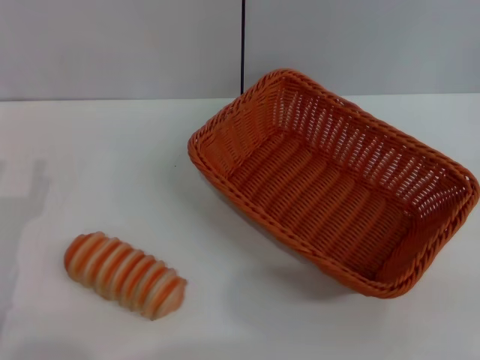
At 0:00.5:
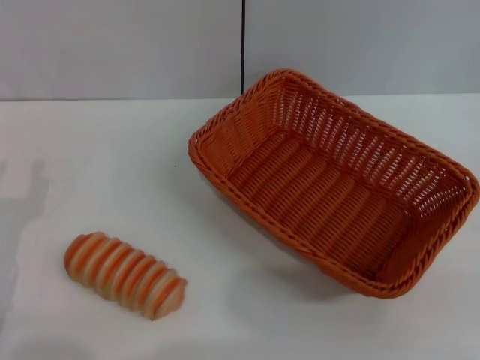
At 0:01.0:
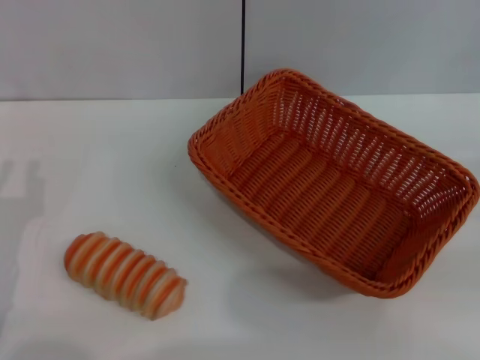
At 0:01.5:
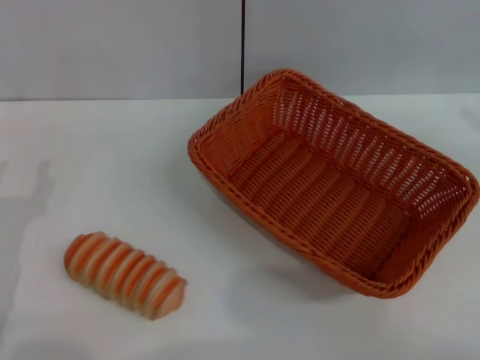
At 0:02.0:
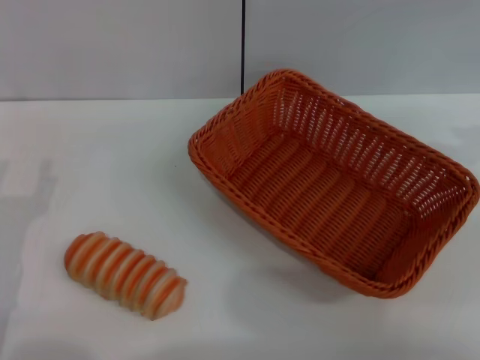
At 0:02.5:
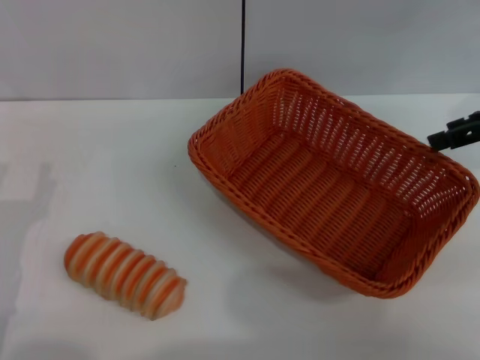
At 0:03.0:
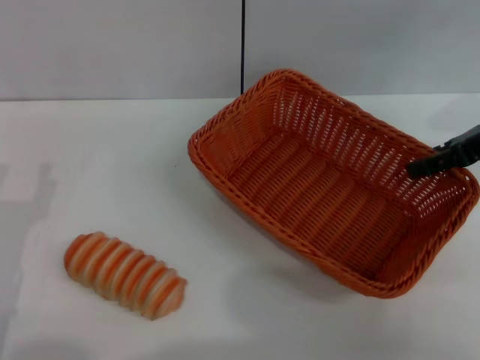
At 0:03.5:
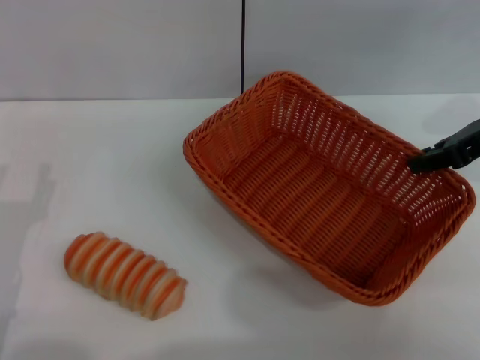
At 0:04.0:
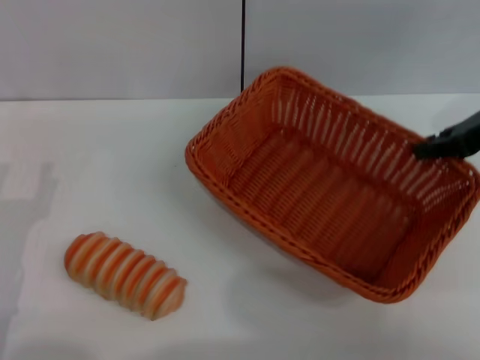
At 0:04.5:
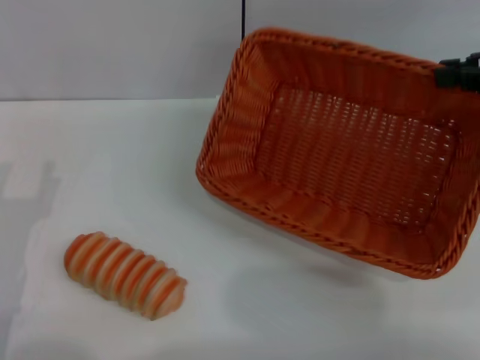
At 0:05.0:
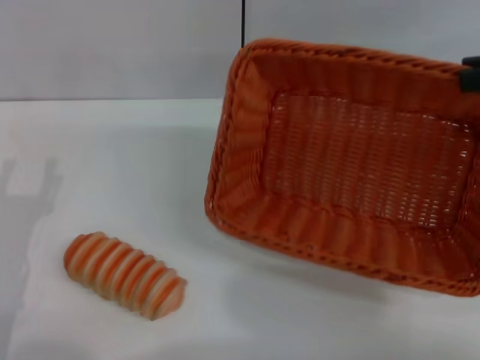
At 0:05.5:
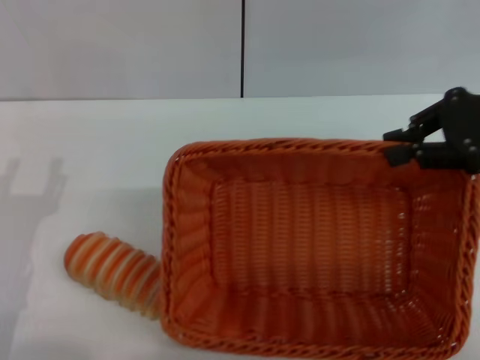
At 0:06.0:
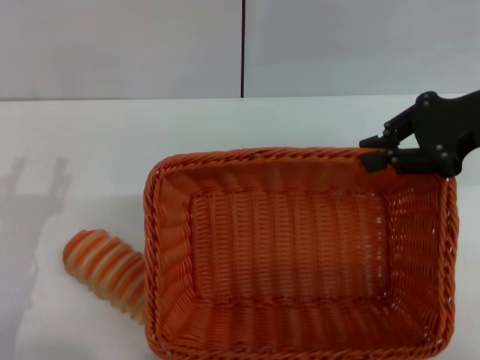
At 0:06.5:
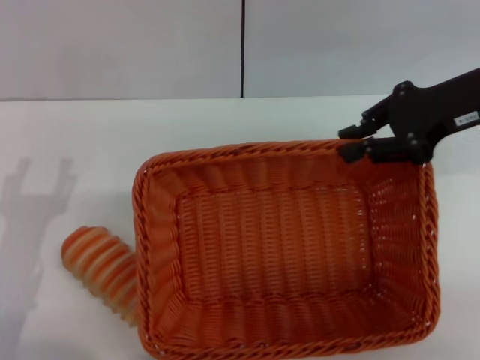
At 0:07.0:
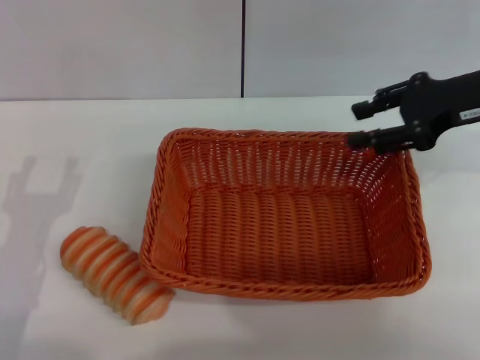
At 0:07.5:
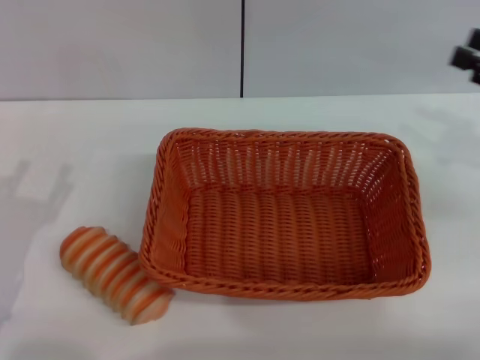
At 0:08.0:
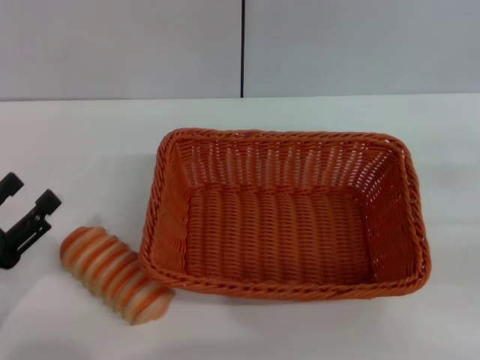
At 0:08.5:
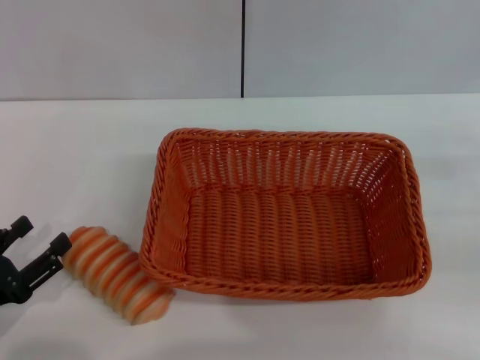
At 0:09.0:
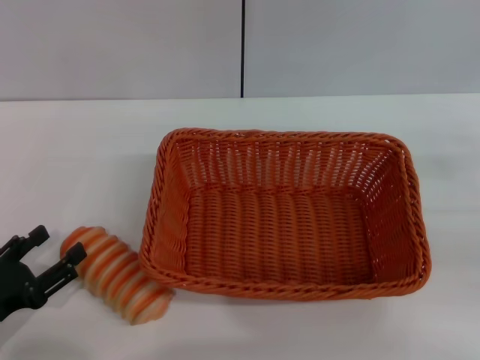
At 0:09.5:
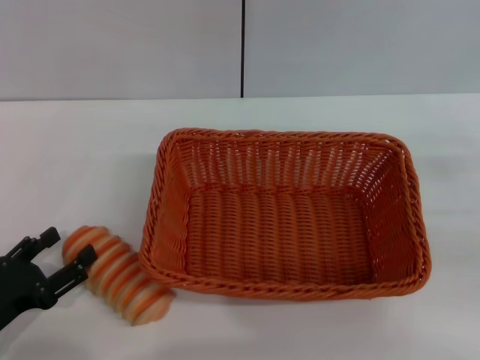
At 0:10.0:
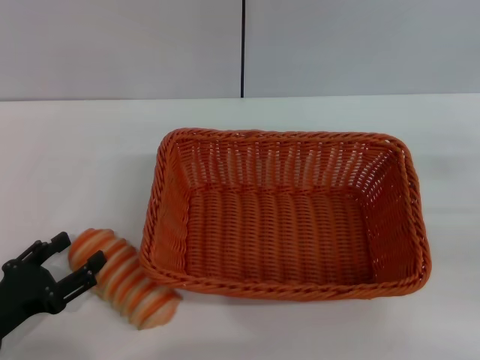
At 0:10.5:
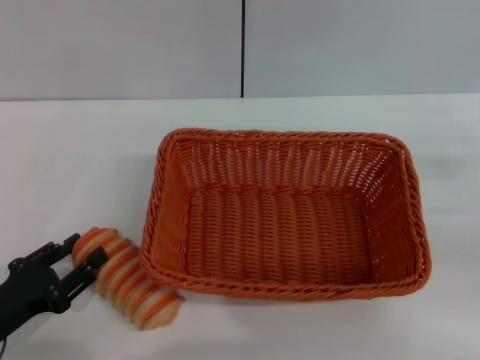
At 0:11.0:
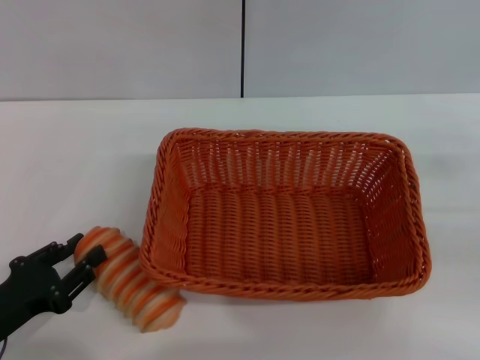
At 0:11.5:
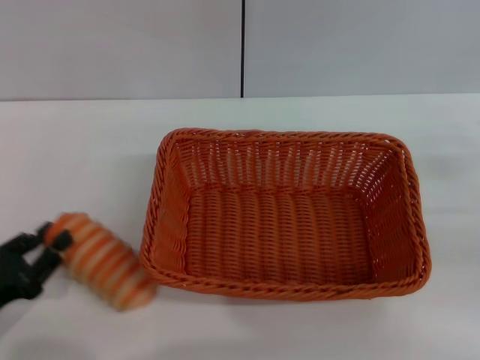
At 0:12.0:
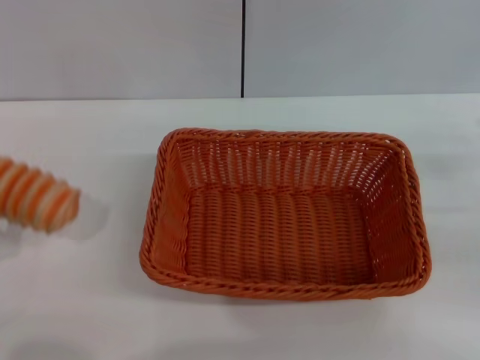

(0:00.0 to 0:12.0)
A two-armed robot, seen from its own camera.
Step, 0:00.0 - 0:04.0: Pick up the light basket with the right gripper.
Step, 0:04.5 - 0:06.5: Place the light basket in the center of view with the right gripper.
Step, 0:07.5 - 0:11.5: Pick up the long bread with the left gripper.
0:00.0 - 0:02.0: The right gripper shifts approximately 20 cm upward and forward.
0:02.0 - 0:04.0: The right gripper moves to the left and downward, some 10 cm, and closes.
0:06.0 - 0:08.0: The right gripper moves to the right, backward and downward, some 20 cm, and opens. Meanwhile the left gripper moves to the left, roughly 5 cm.
0:08.0 - 0:10.0: The grippers make only small movements.
0:10.0 - 0:12.0: The left gripper ends up about 5 cm from where it was, and closes its fingers.

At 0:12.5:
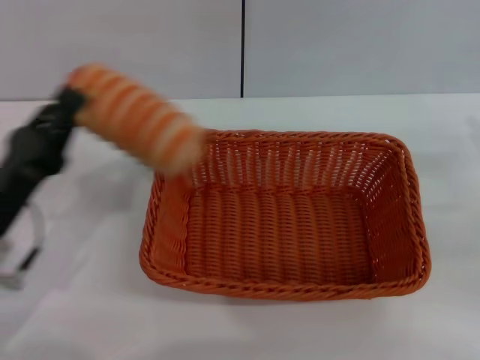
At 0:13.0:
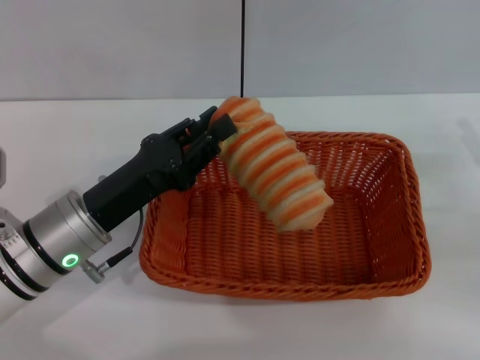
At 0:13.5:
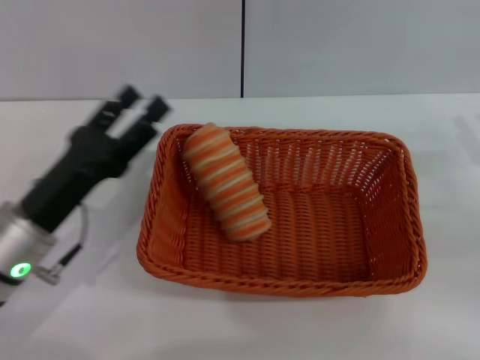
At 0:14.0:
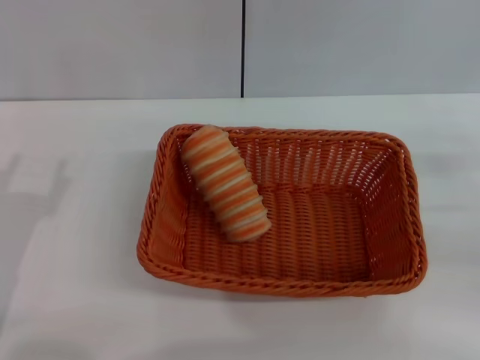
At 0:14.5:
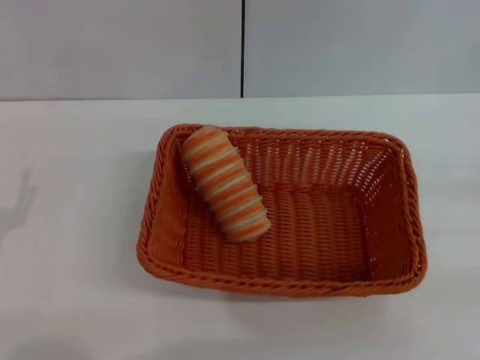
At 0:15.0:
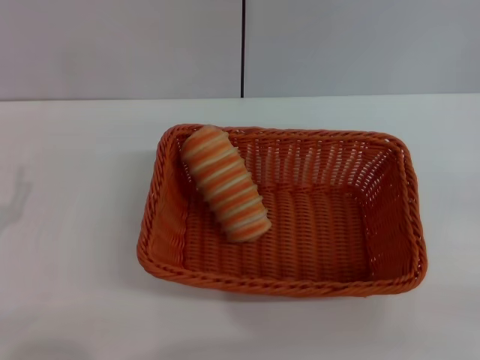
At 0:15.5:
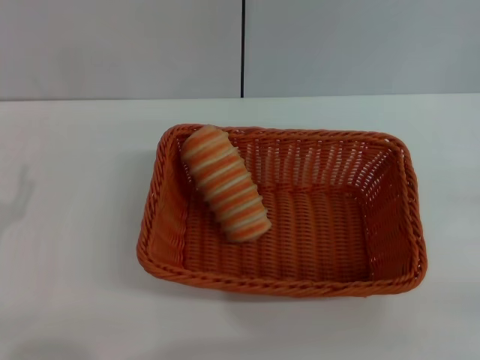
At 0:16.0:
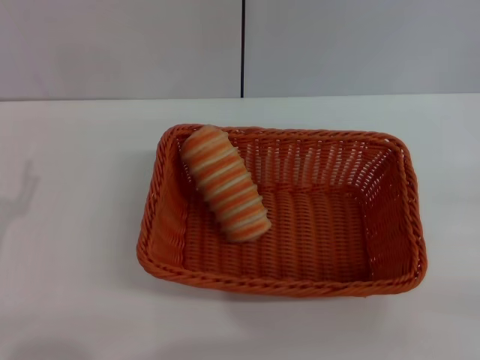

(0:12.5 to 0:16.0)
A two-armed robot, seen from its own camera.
0:12.5 - 0:14.5: The right gripper moves to the right, about 5 cm. The left gripper moves backward, some 5 cm, and opens its fingers.

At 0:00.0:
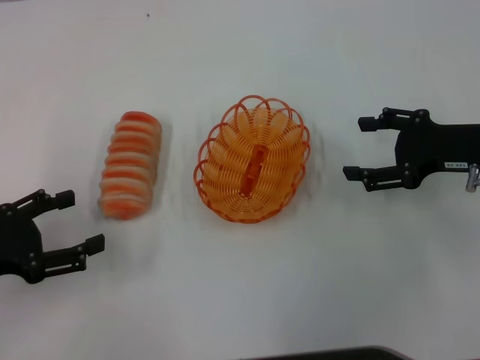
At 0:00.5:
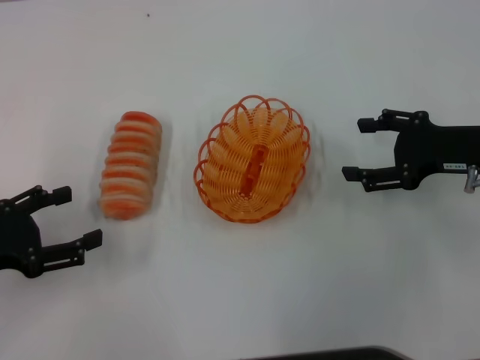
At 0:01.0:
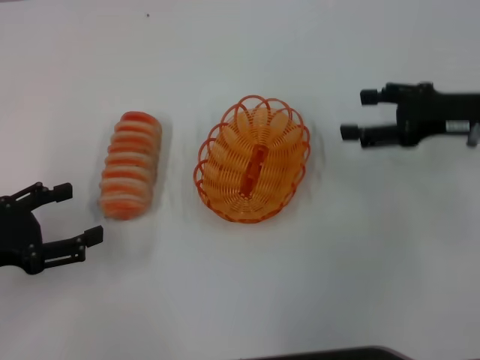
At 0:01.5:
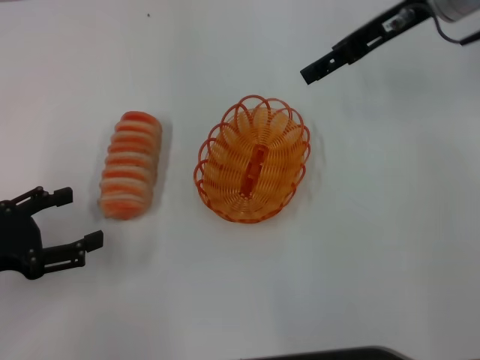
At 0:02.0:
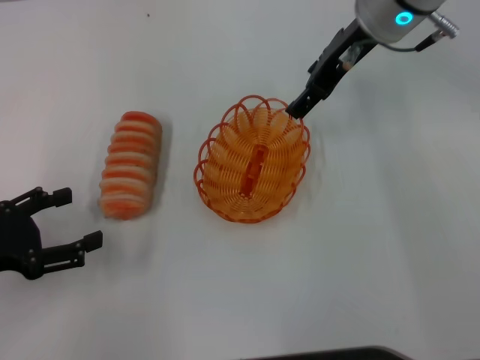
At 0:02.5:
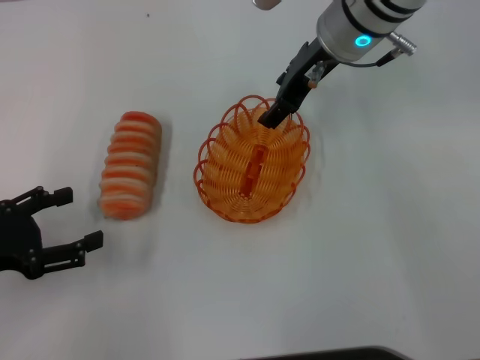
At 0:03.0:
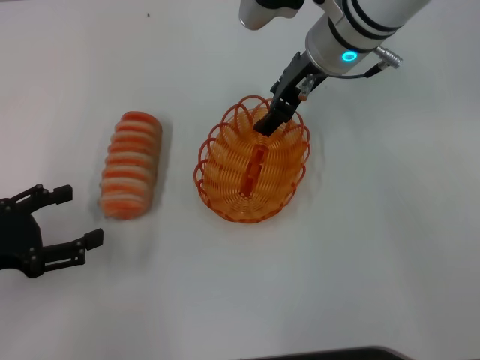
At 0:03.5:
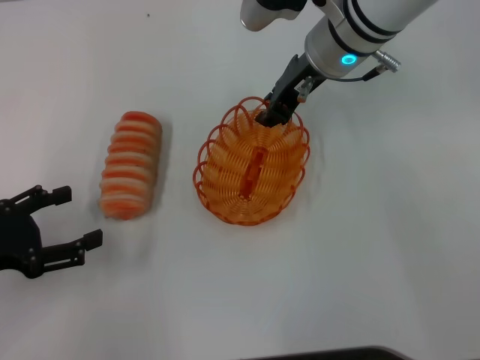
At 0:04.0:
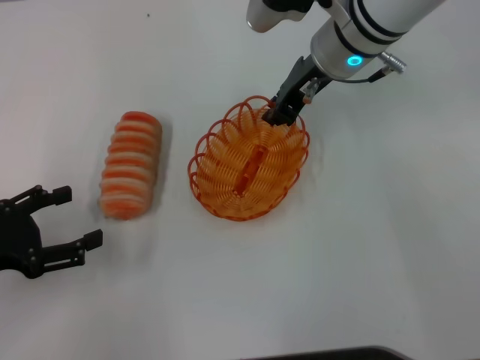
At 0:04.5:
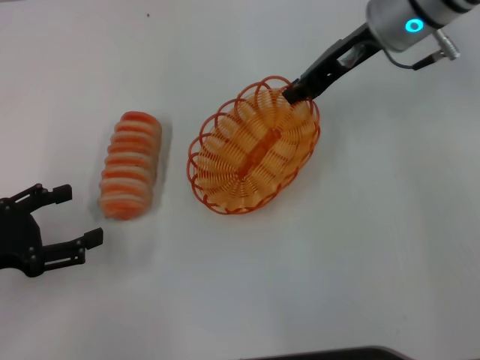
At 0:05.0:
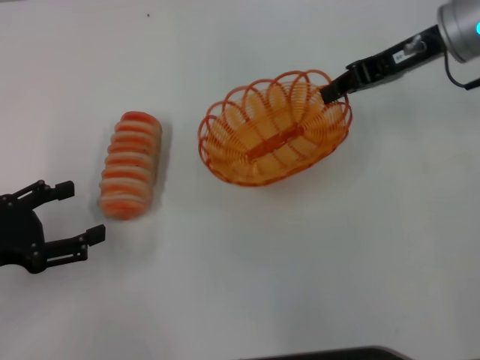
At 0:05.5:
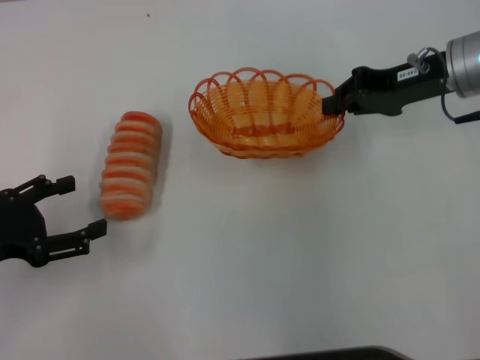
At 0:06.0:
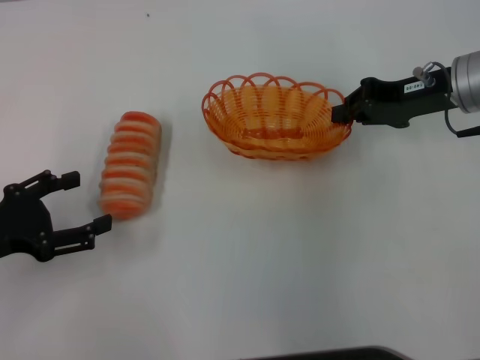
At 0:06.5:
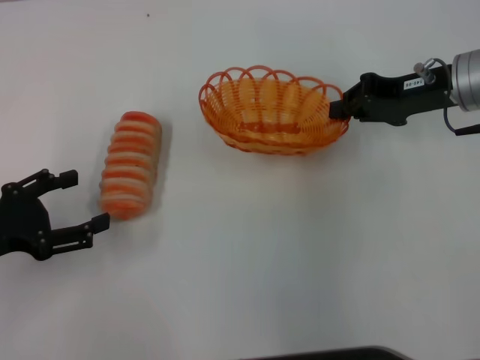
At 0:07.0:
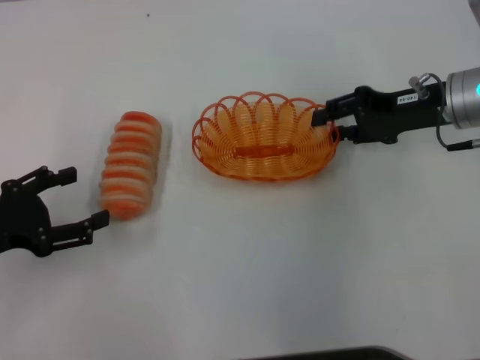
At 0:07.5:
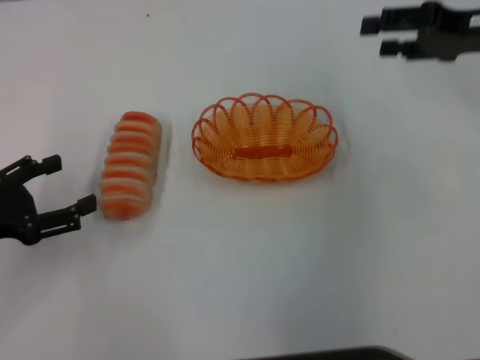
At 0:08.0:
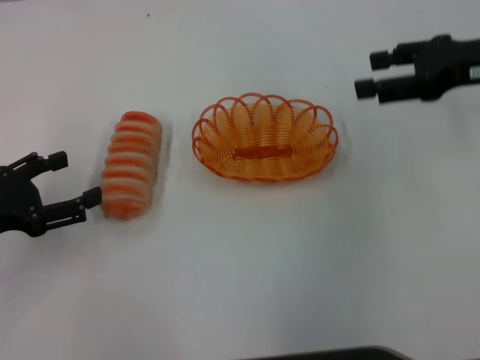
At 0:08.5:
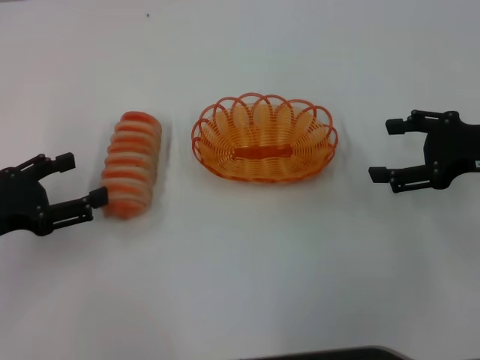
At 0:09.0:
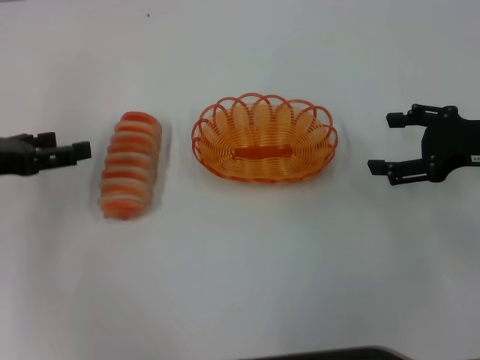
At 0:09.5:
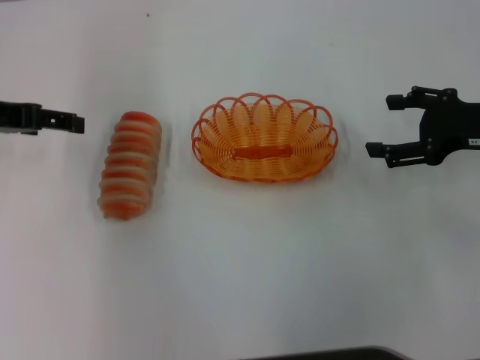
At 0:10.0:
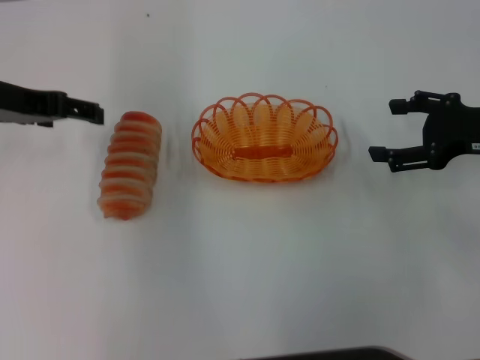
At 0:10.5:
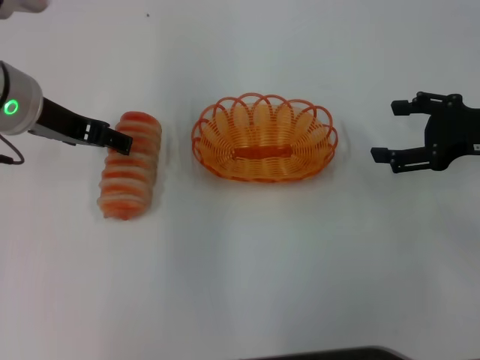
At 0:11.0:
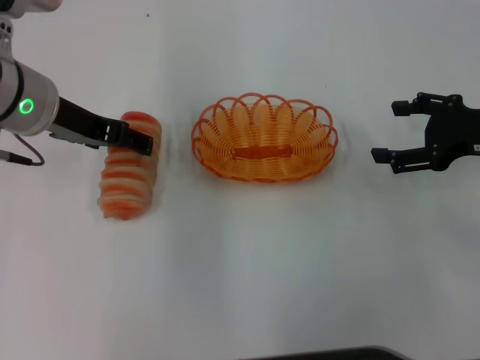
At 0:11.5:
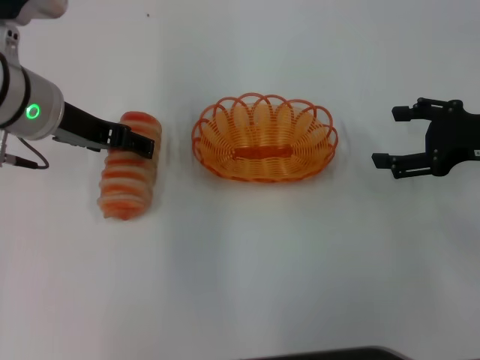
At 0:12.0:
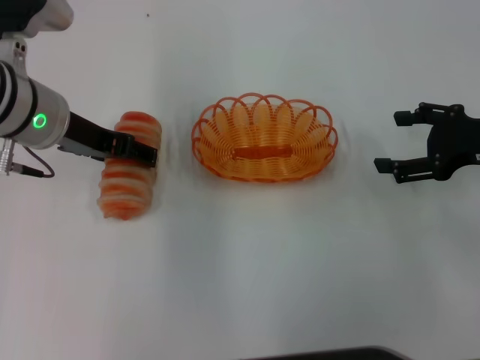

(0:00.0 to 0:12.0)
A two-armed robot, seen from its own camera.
Step, 0:00.0 - 0:04.5: Pick up the basket with the right gripper.
Step, 0:05.0 - 0:07.0: Place the basket in the center of view with the right gripper.
0:00.0 - 0:02.0: The right gripper travels to the left, forward and upward by roughly 20 cm.
0:02.0 - 0:04.0: The right gripper shifts by about 5 cm, and closes.
0:04.0 - 0:06.0: The right gripper shifts approximately 15 cm to the right.
0:06.0 - 0:08.0: The right gripper shifts by some 5 cm, and opens up.
0:08.0 - 0:10.0: The right gripper heads downward, covering roughly 5 cm. Meanwhile the left gripper is displaced forward, upward and to the right by approximately 15 cm.
0:10.0 - 0:12.0: The left gripper is displaced to the right by roughly 5 cm.
